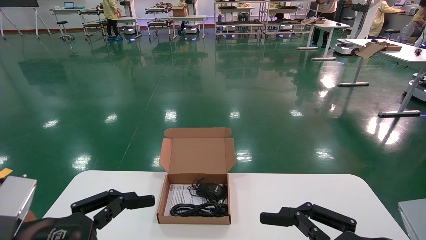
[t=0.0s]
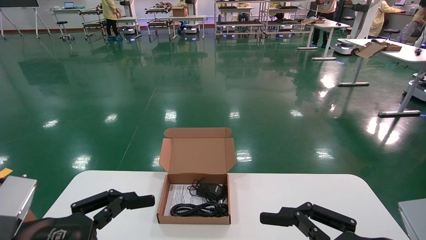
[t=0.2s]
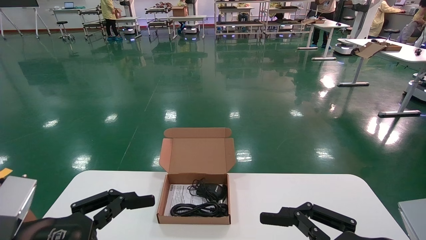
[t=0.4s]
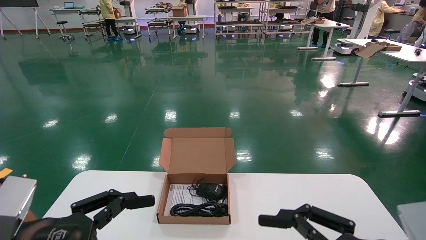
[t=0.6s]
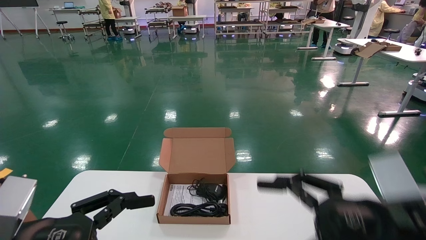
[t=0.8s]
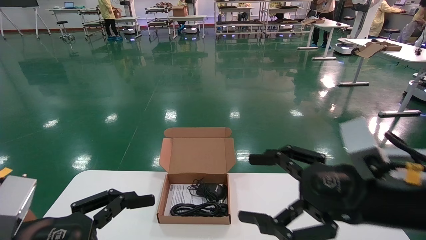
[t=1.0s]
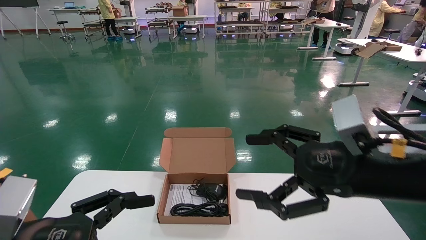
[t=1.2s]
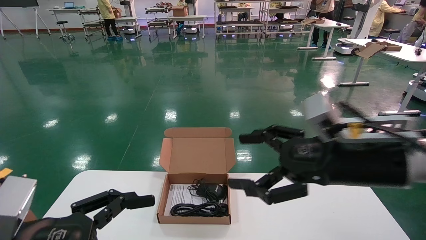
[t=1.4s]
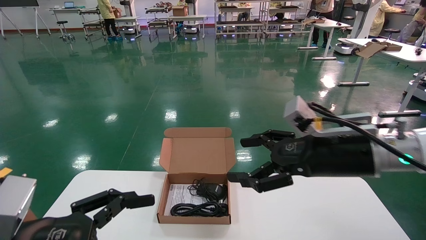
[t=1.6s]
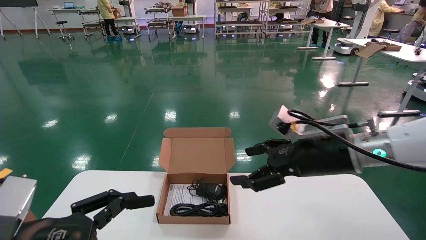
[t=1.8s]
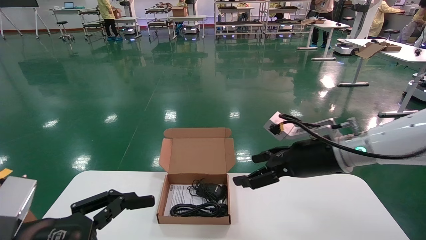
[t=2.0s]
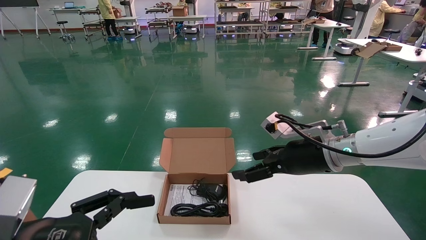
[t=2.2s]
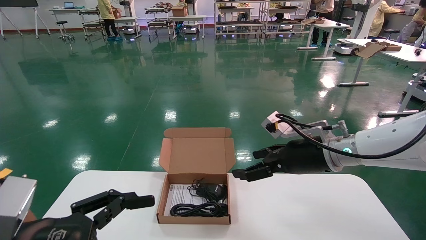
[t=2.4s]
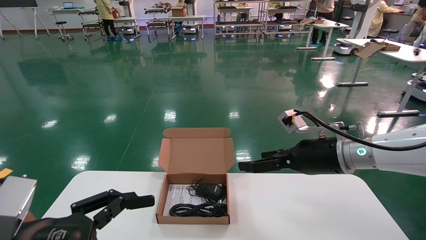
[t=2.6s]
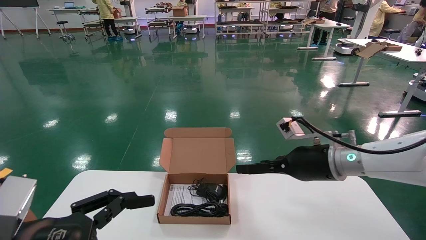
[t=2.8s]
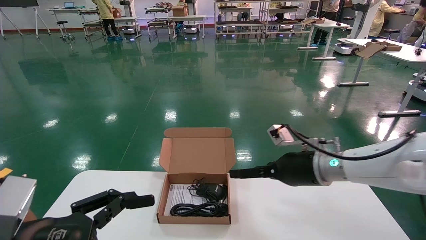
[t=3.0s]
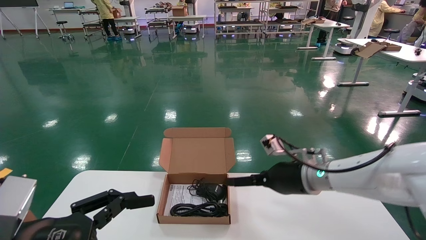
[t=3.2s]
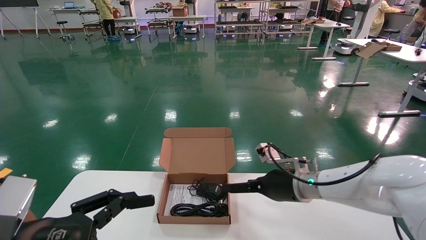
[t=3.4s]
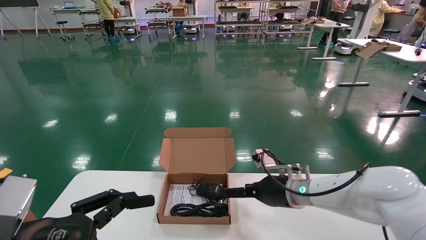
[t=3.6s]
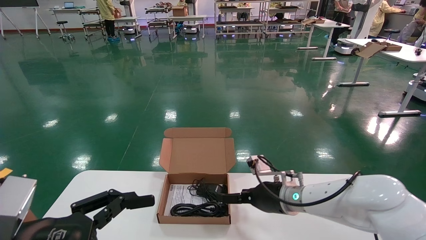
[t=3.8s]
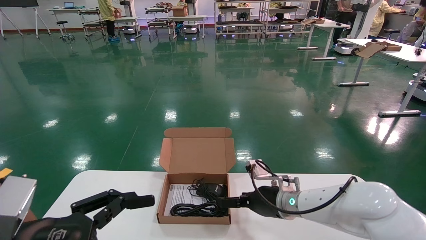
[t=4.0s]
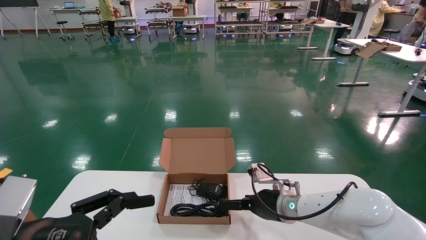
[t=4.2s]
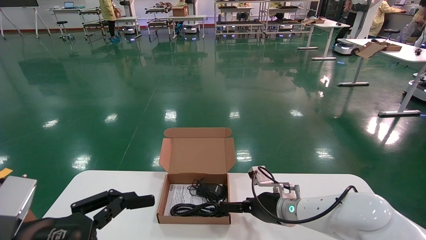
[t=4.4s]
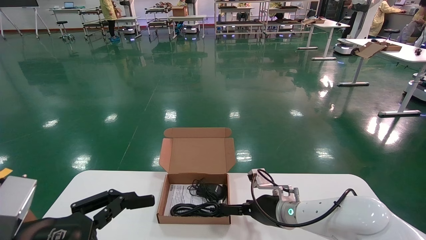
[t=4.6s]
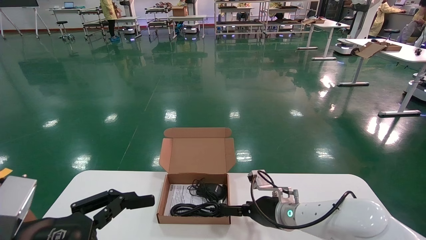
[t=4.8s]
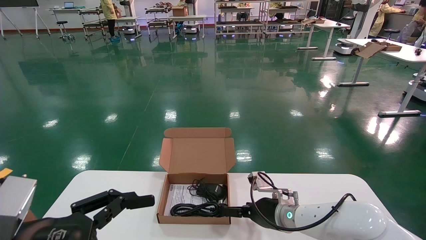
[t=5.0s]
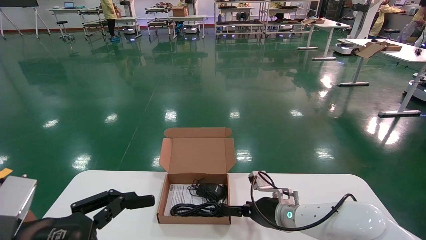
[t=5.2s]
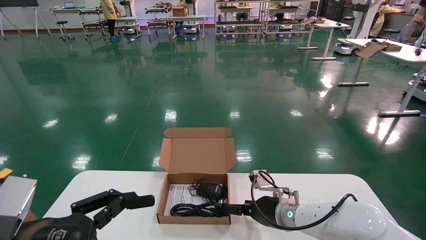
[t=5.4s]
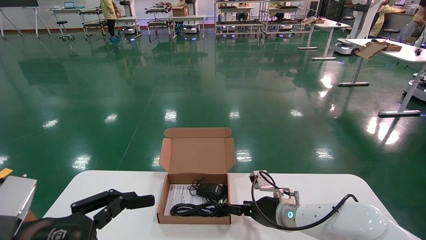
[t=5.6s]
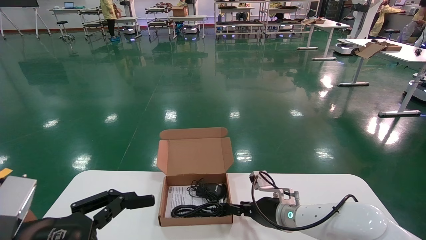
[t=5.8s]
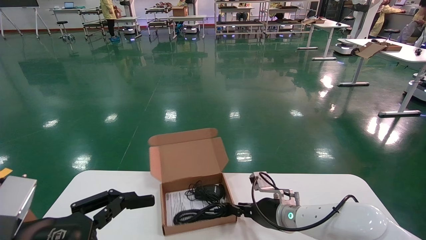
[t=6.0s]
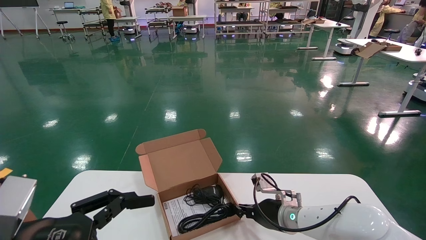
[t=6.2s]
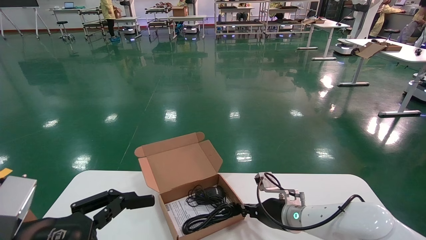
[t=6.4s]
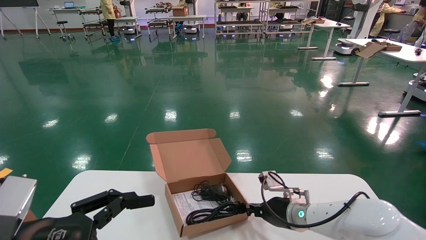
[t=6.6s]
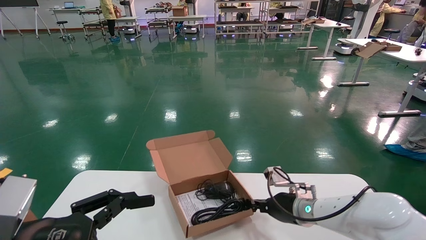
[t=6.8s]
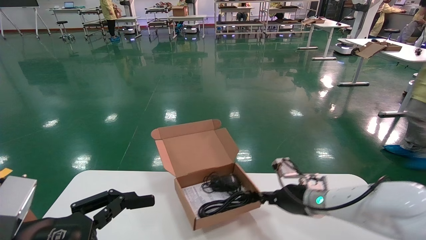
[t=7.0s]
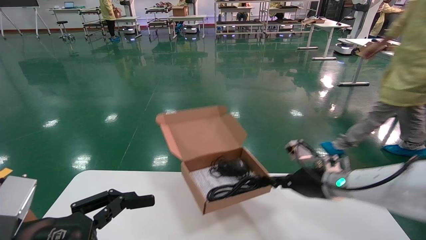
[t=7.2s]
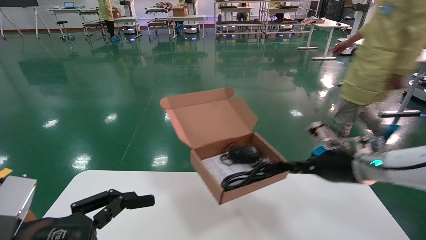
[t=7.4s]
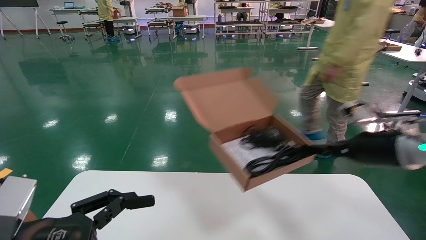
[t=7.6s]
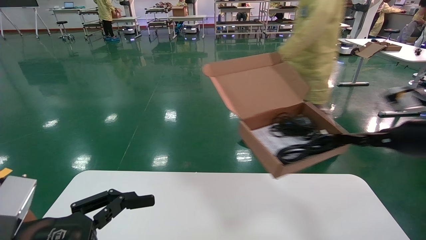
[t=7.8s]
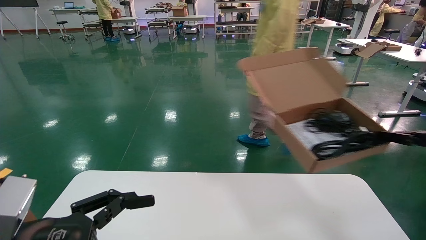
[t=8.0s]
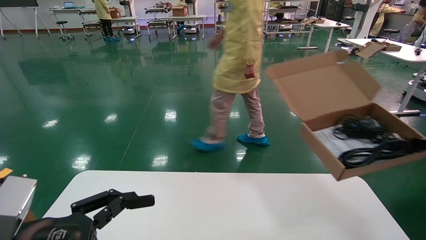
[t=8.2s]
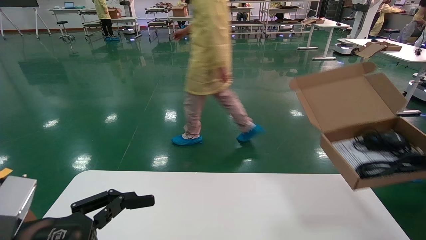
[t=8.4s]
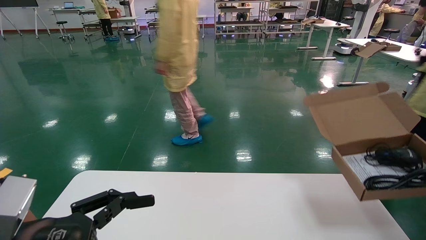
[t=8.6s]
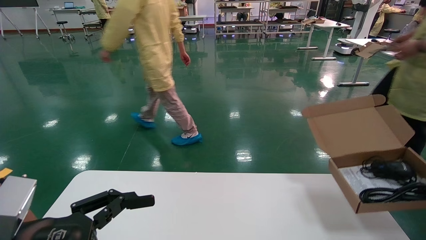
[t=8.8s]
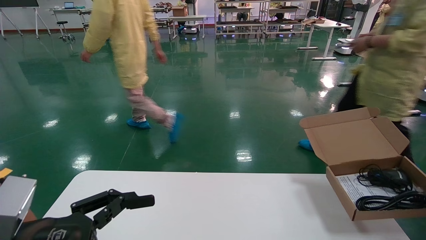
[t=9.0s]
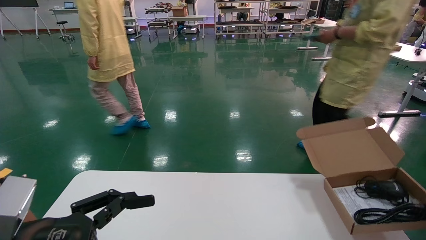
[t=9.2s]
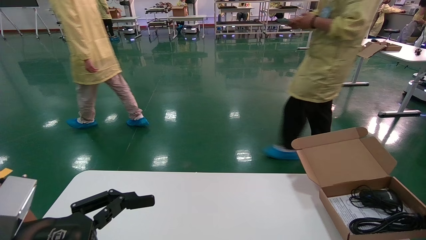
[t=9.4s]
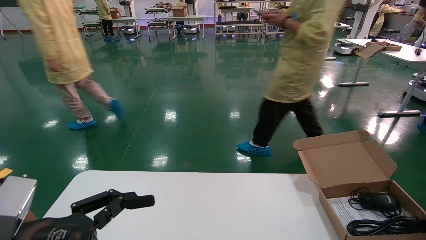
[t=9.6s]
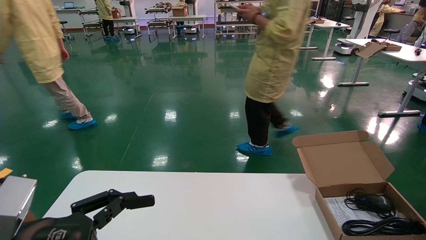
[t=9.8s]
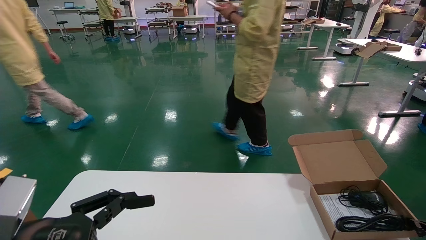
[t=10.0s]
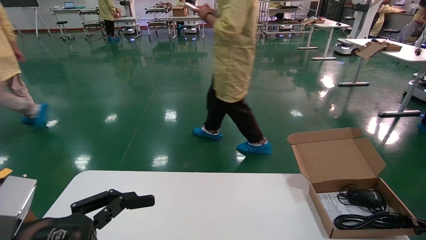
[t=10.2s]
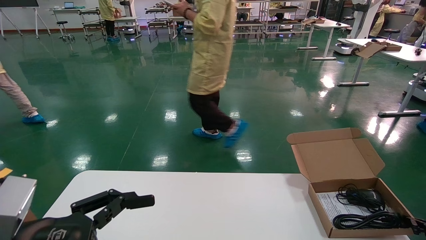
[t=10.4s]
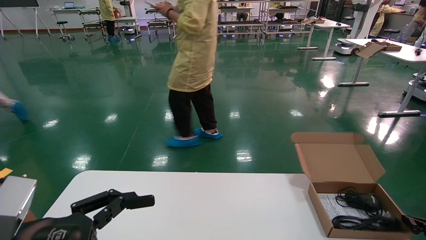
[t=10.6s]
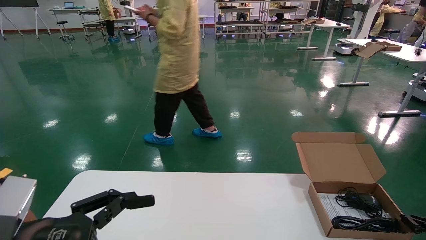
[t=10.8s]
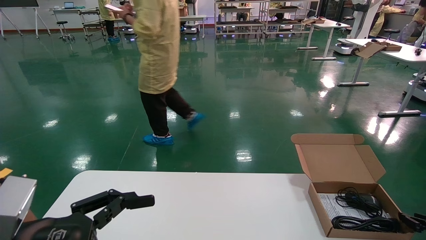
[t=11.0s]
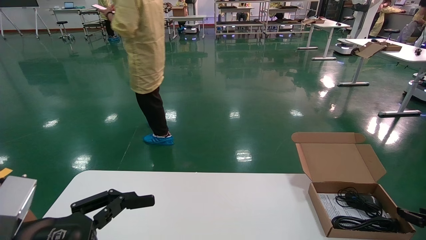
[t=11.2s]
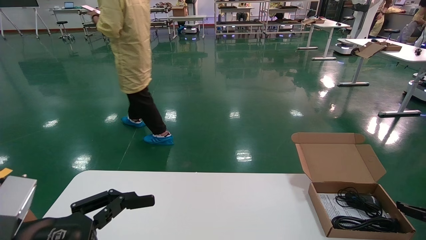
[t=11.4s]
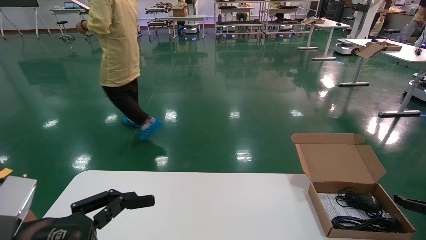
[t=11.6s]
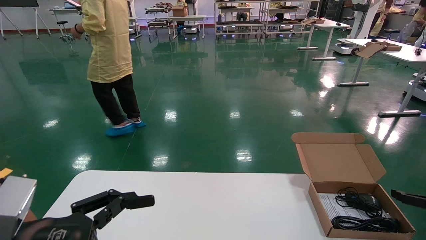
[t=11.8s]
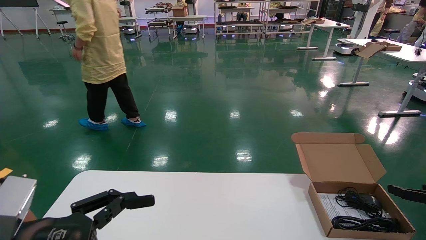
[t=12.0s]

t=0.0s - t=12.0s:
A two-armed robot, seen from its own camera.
Task of the whole recording: move the position of the storage box with accessories on the table.
Step, t=1.0s - t=6.4s: Grab and pick up the open mouse box from the accessory packaging area.
Step, t=6.6s - t=10.6s: Place the open mouse box onto the operation table.
t=0.0s - t=1.6s: The right gripper is displaced forward and upward by roughly 20 cm.
t=1.6s - t=3.0s: The right gripper is displaced forward and downward by about 10 cm.
t=3.0s - t=4.4s: The right gripper travels downward by some 10 cm.
t=4.4s - t=6.0s: The right gripper closes.
t=6.0s - t=7.6s: The right gripper moves to the right, upward and backward, roughly 30 cm, and closes up.
t=7.6s - t=9.0s: The right gripper travels to the right and downward by some 25 cm.
t=9.0s - t=10.4s: The right gripper moves downward, about 5 cm.
t=10.4s - t=12.0s: The right gripper goes about 10 cm upward, and opens its fingers.

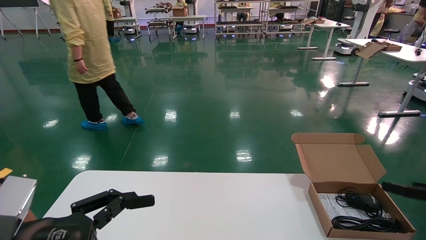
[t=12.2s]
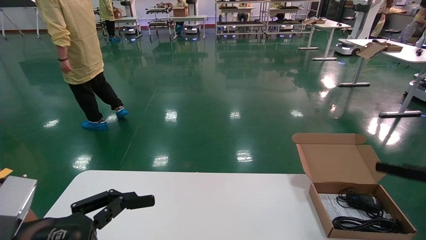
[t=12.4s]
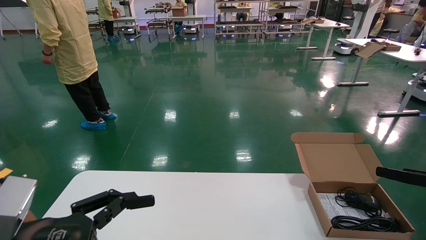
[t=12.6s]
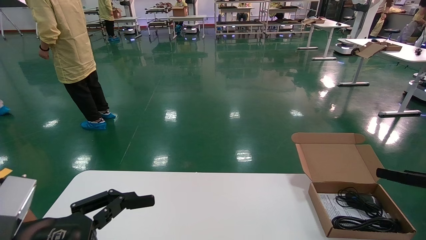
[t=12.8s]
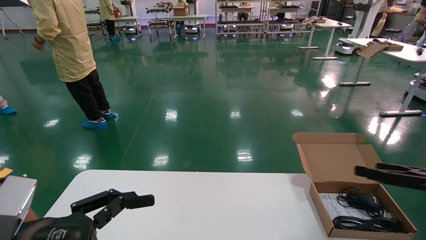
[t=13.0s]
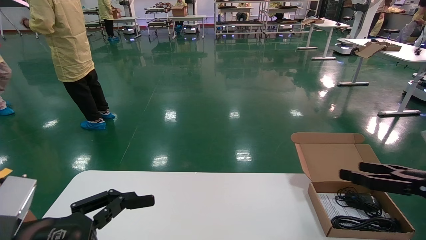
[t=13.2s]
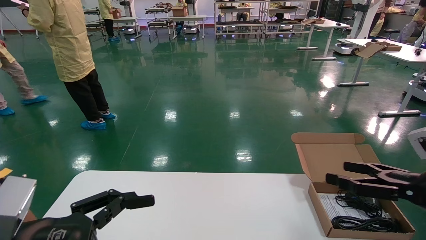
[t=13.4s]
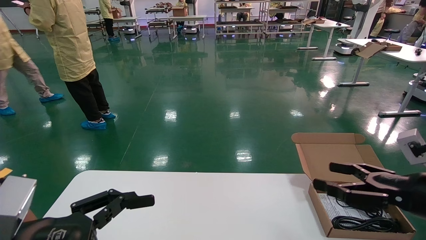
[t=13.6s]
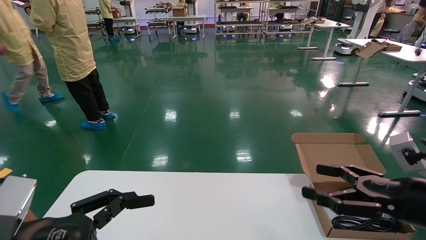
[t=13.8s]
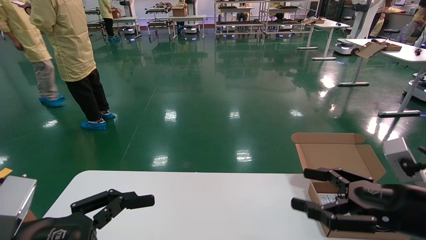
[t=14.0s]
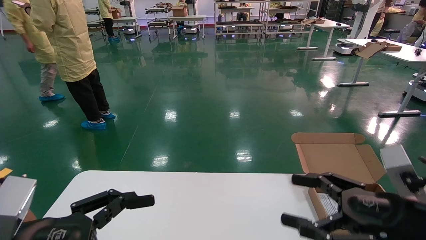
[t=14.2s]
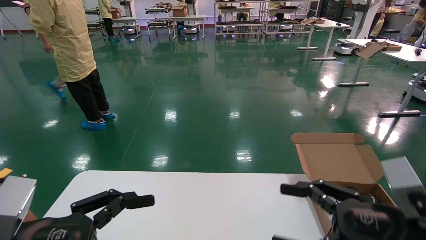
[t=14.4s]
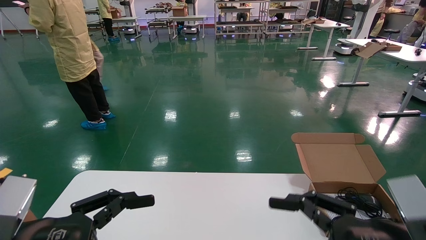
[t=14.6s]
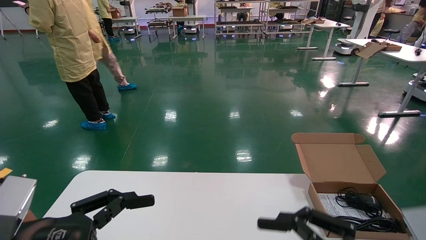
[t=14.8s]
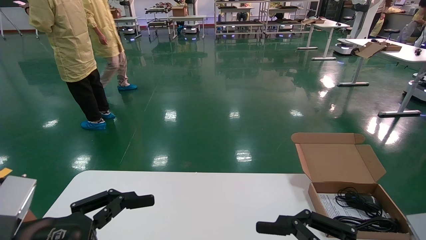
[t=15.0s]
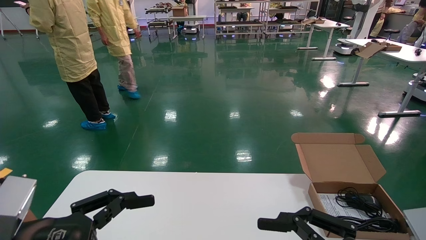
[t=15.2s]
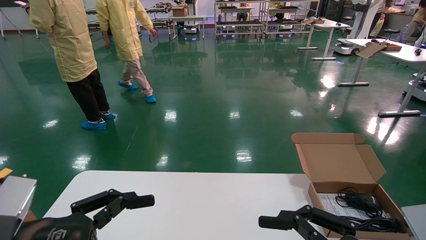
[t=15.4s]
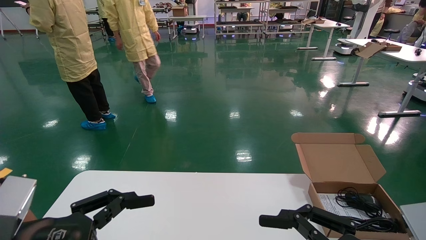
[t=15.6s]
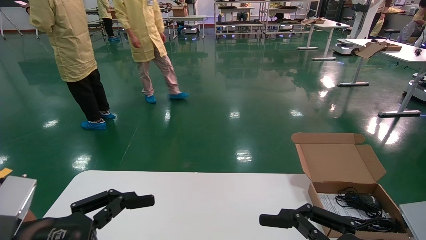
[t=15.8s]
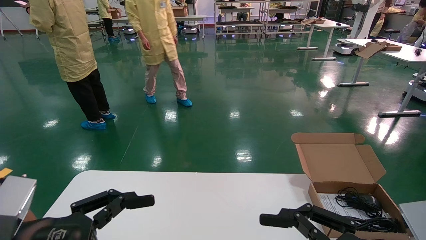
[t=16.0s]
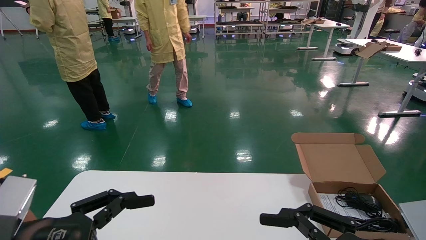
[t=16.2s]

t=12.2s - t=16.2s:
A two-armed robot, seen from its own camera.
Task of the whole recording: move the position of the storage box with accessories on the table.
t=12.2s - t=13.6s: The right gripper moves to the left, some 10 cm.
t=13.6s - t=14.8s: The right gripper heads to the left and backward, covering about 15 cm.
t=14.8s - t=16.2s: Both grippers stay put.
